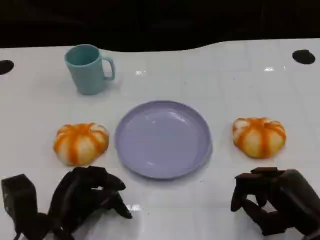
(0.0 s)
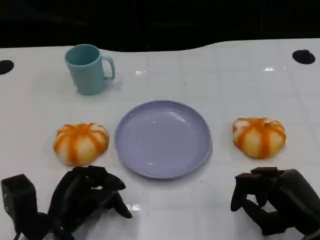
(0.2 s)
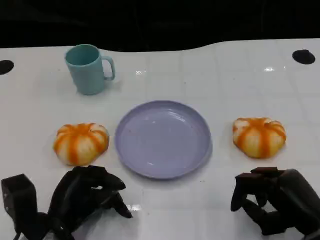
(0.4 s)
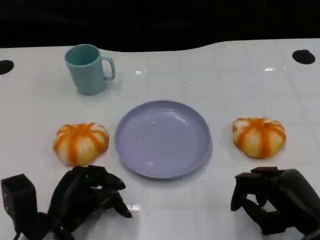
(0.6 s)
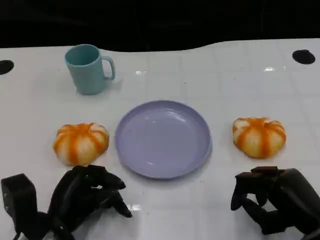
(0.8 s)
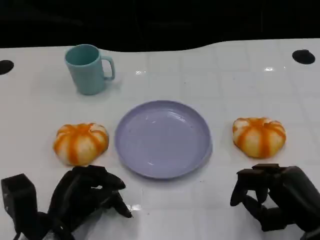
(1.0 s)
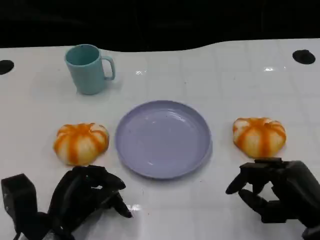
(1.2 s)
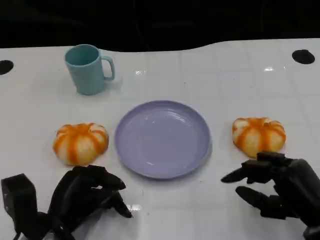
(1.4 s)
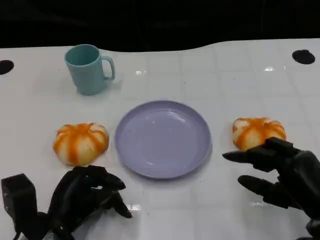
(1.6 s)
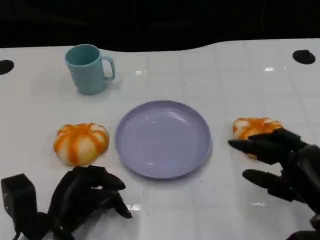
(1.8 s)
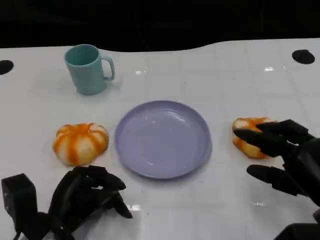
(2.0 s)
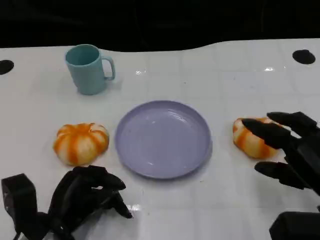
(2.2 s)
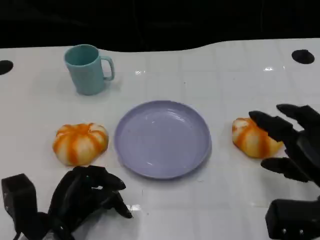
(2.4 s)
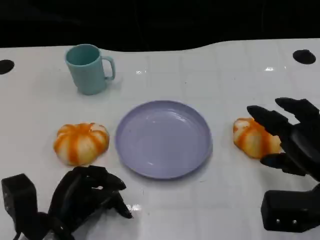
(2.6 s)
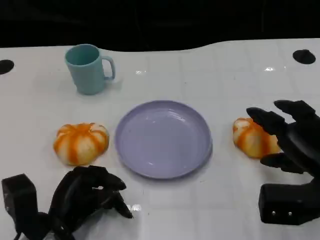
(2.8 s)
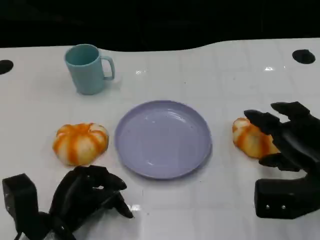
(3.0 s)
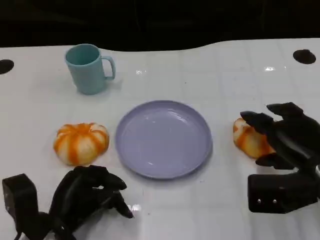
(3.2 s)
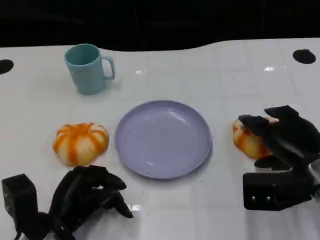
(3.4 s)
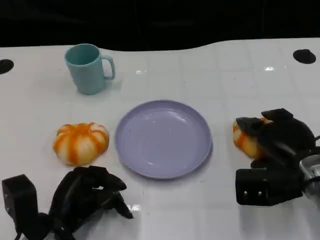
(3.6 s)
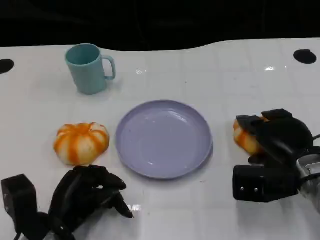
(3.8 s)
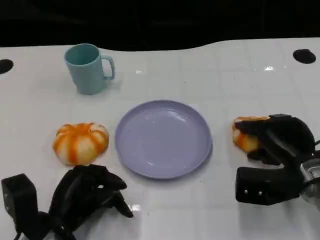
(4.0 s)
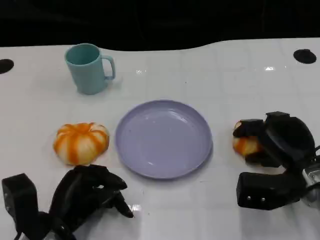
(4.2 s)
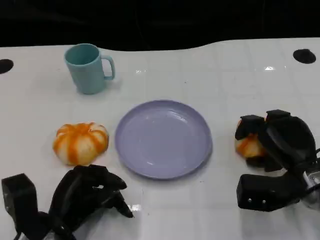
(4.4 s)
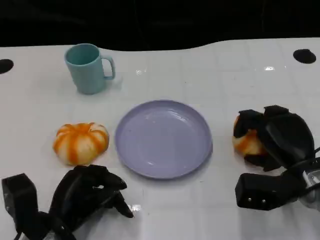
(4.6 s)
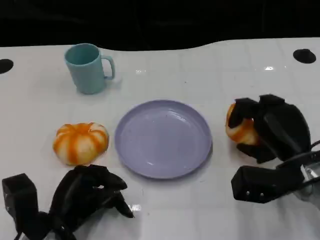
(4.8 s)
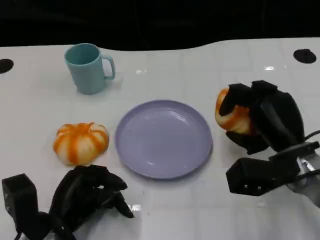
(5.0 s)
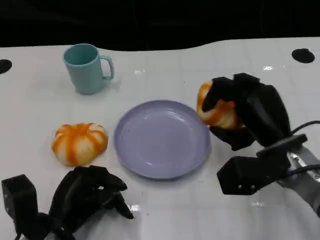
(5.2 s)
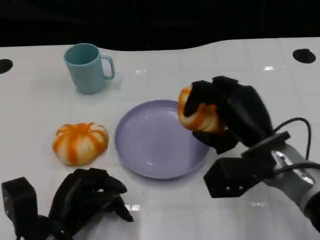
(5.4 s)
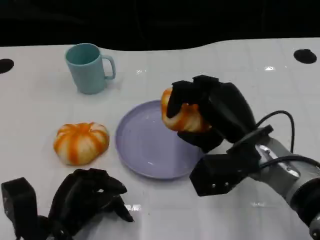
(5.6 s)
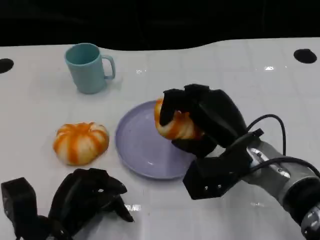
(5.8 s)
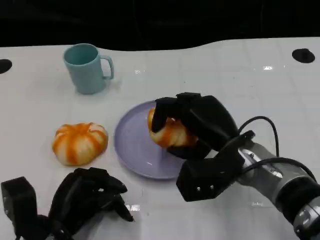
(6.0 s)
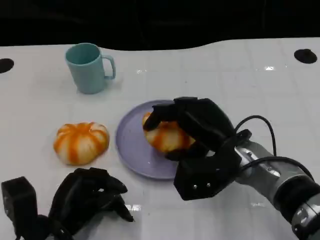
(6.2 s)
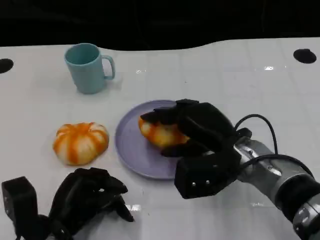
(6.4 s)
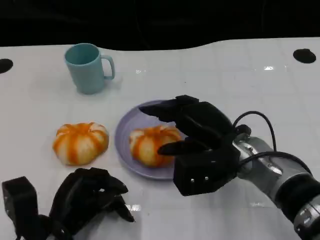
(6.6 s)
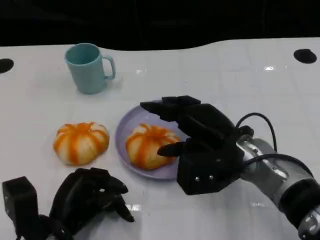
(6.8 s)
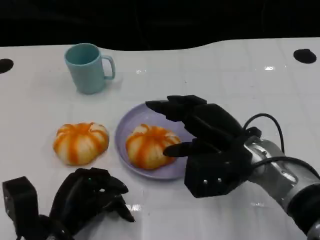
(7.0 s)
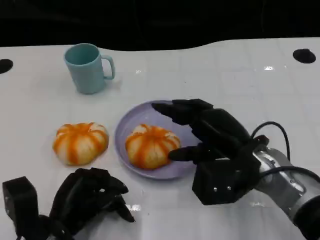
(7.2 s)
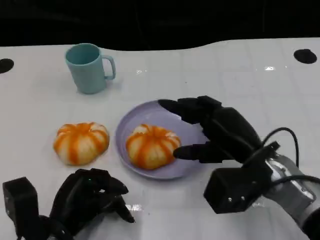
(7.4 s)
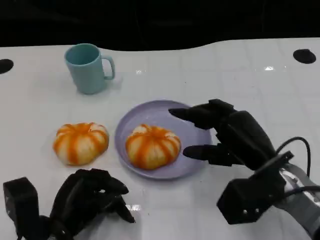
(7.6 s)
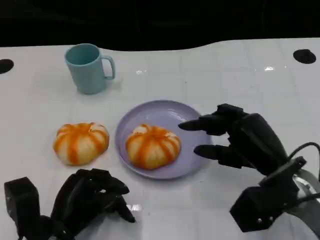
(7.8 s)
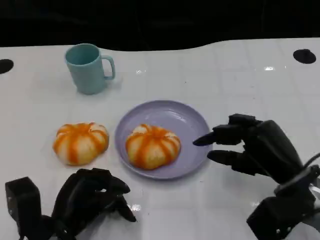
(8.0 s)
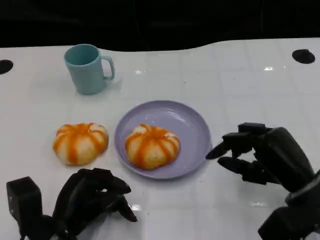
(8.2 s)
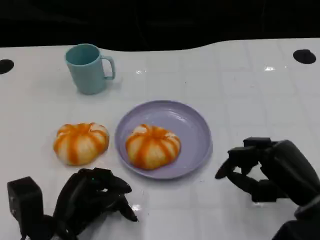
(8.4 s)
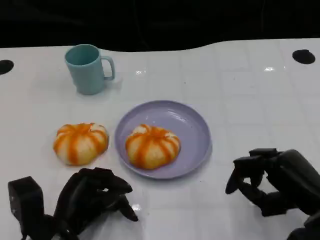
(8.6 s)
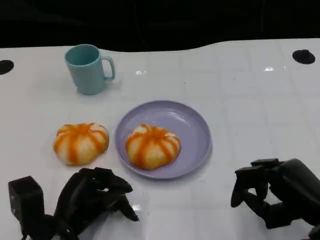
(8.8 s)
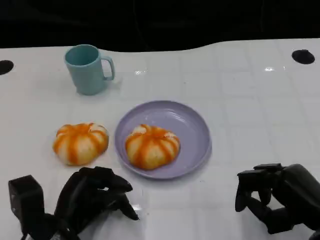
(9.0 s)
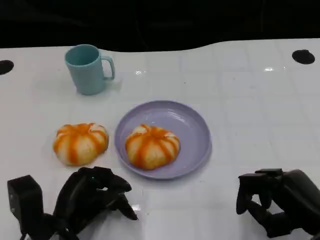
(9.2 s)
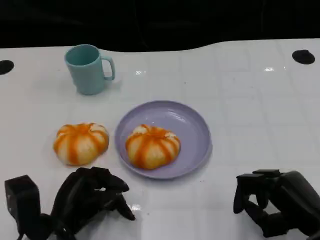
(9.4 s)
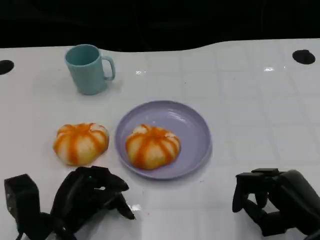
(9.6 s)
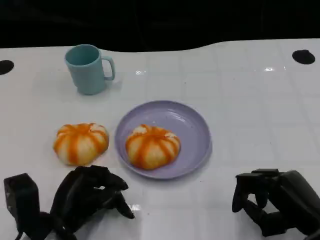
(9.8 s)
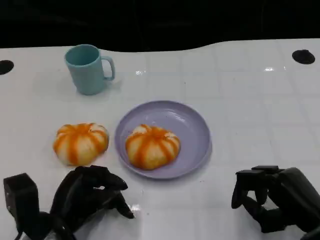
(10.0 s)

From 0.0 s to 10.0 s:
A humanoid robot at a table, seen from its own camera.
Task of the whole recording: Grasp the bread from the table and place it into the plate.
From 0.0 s to 1.4 s: There are only small adjustments of the hands.
From 1.4 s to 2.8 s: The right hand shifts approximately 5 cm forward.
From 2.8 s to 4.2 s: The right hand ends up approximately 5 cm from where it was.
From 4.2 s to 5.8 s: The right hand heads to the left and upward, covering about 10 cm.
From 5.8 s to 7.2 s: The hands stay close to where they were, moving slightly.
From 7.2 s to 8.6 s: The right hand moves to the right and backward, roughly 10 cm.
From 8.6 s to 10.0 s: The hands move only a little.

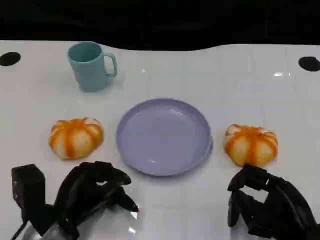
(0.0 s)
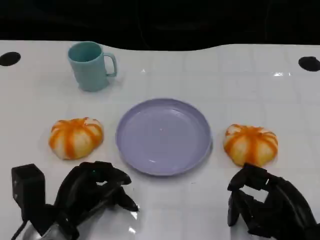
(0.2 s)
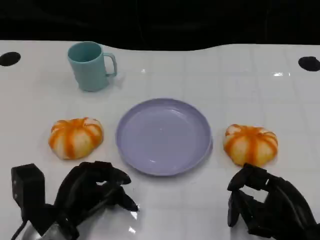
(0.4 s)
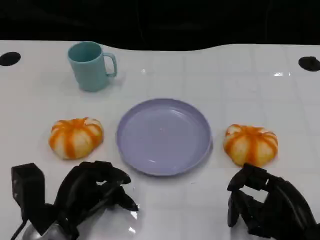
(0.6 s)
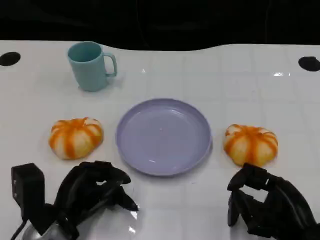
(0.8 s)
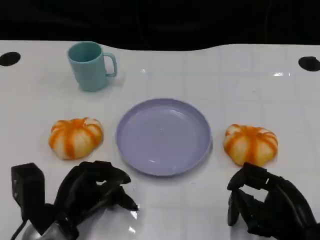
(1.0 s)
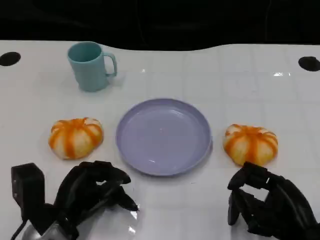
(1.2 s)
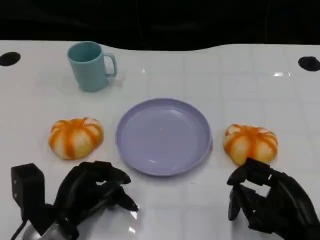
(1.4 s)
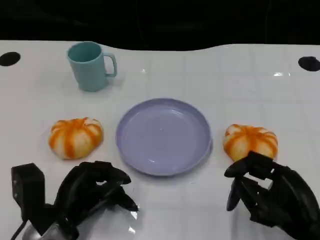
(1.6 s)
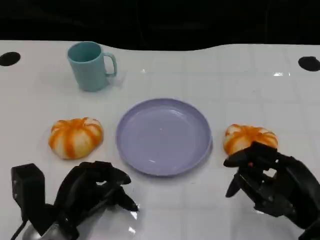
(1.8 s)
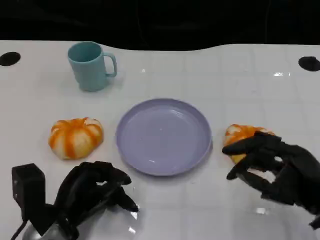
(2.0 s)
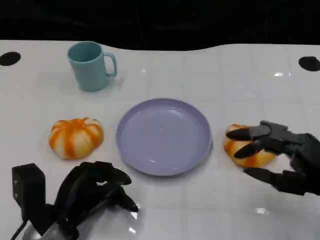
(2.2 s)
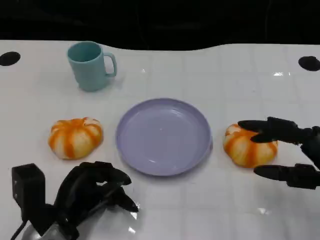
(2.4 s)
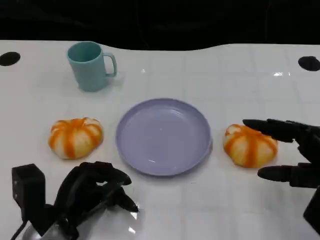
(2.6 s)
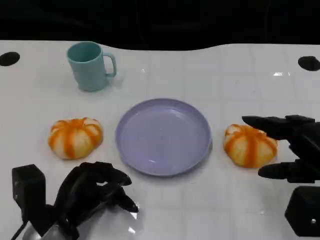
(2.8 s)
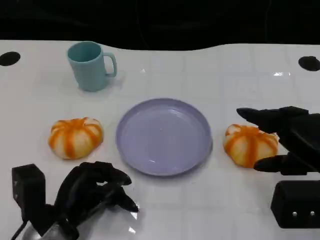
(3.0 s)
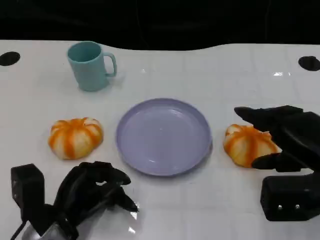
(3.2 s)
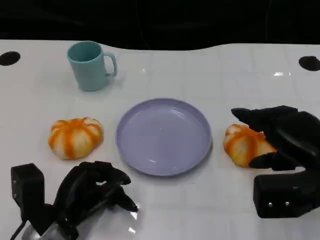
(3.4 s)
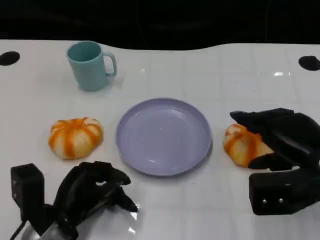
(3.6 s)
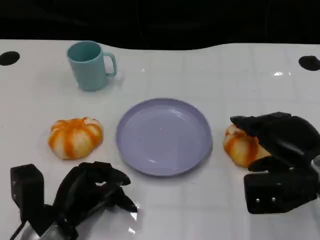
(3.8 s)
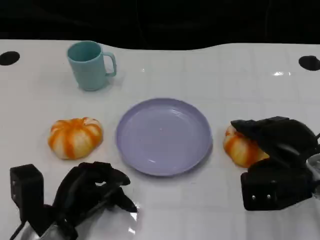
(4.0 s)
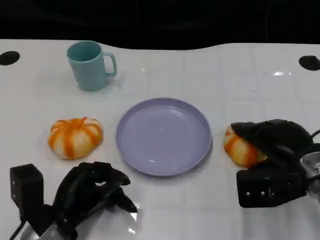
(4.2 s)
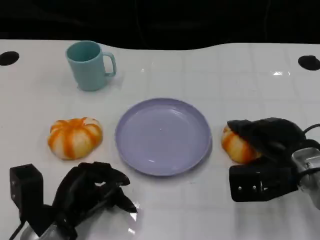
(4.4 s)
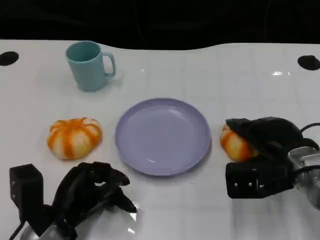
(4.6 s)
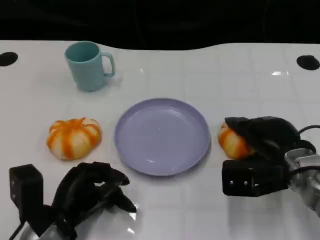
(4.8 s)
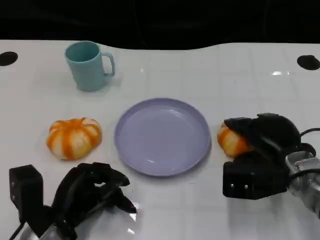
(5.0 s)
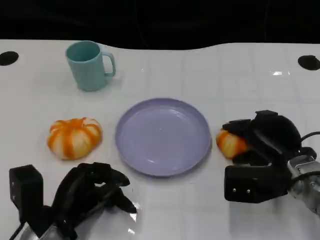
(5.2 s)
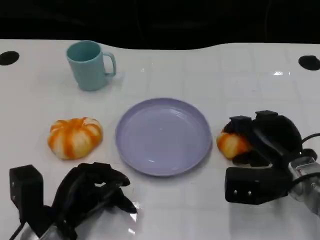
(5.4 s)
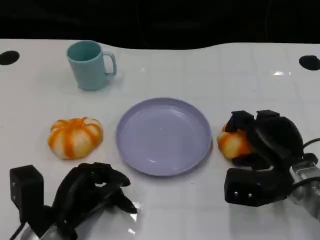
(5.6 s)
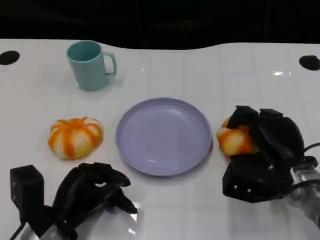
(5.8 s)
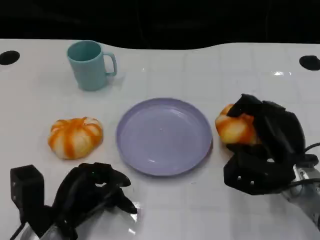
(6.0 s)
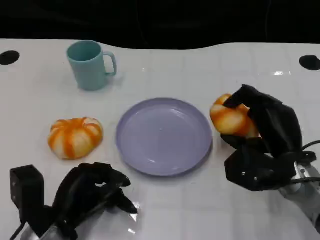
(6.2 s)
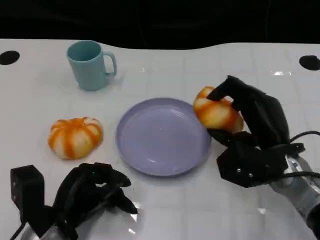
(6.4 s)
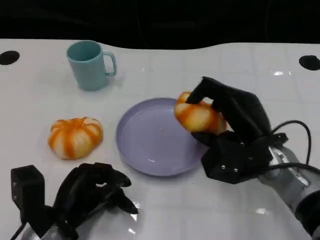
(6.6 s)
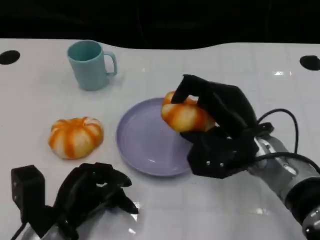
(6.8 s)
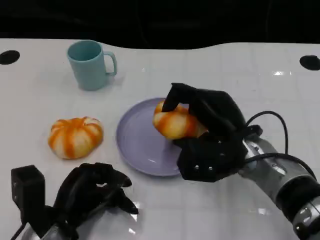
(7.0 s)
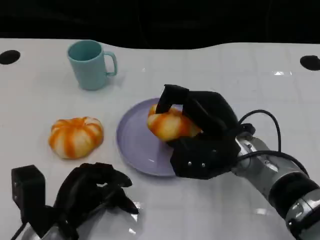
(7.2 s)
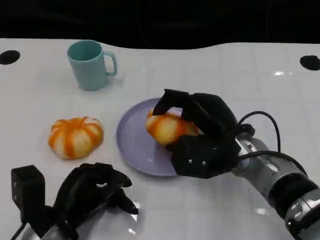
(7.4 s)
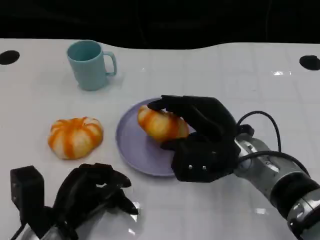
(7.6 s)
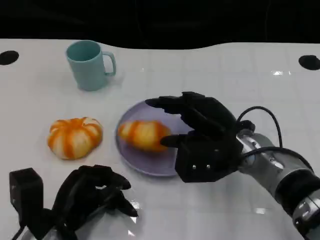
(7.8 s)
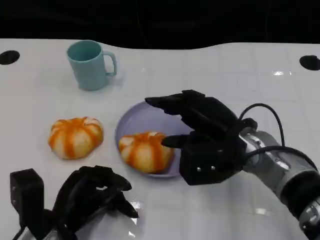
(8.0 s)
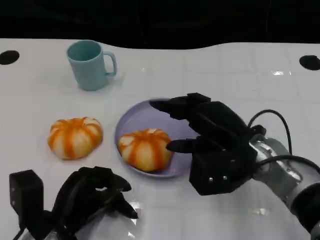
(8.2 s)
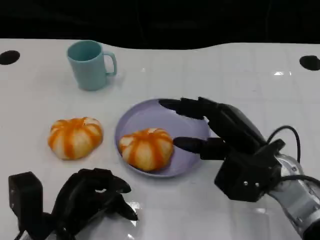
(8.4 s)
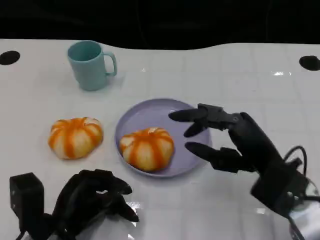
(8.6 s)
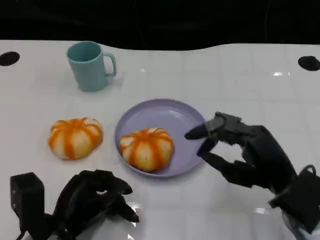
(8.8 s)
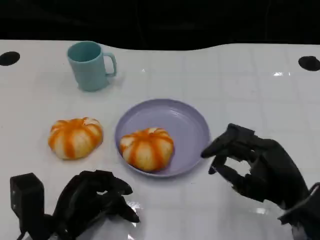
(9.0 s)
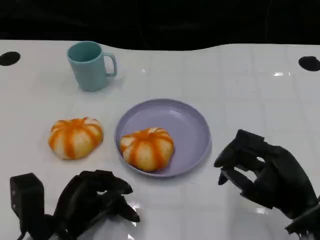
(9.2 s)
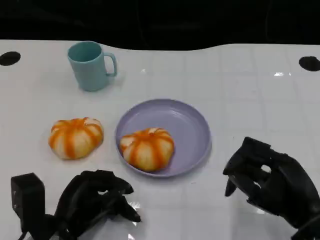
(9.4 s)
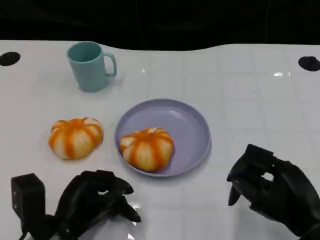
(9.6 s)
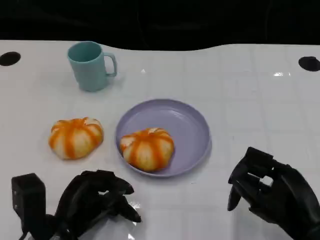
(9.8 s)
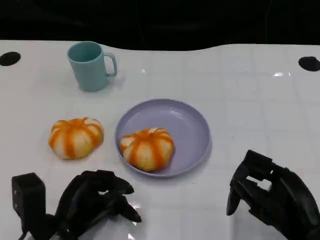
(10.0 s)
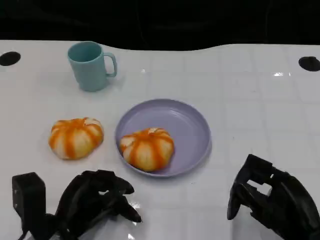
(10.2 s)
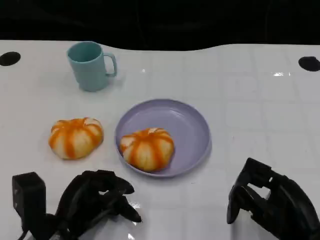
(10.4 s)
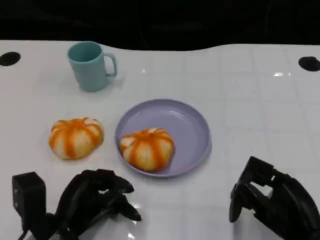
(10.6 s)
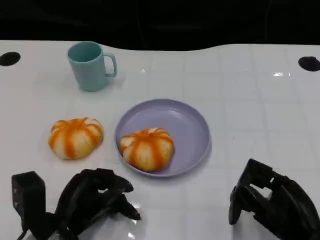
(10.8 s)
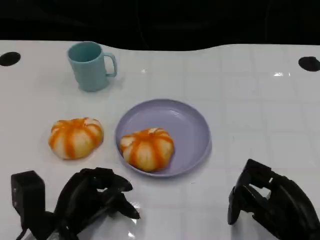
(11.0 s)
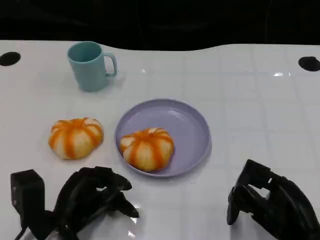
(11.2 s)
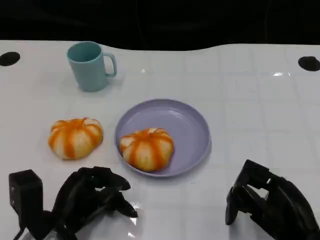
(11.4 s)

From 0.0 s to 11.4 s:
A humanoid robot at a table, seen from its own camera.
Task of the whole recording: Grasp the bread from the table and place it into the plate.
From 0.0 s to 1.4 s: The hands move only a little.
From 1.4 s to 2.8 s: The right hand is displaced upward by some 10 cm.
From 2.8 s to 4.2 s: The right hand goes roughly 10 cm forward and downward.
From 5.6 s to 7.2 s: The right hand moves to the left and upward, approximately 10 cm.
From 7.2 s to 8.6 s: The right hand is displaced to the right and backward by roughly 10 cm.
From 8.6 s to 10.0 s: The right hand shifts about 5 cm backward.
From 10.0 s to 11.4 s: The hands make only small movements.

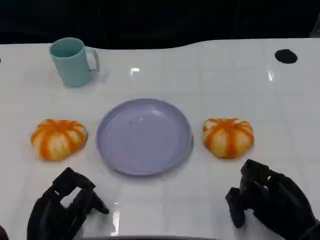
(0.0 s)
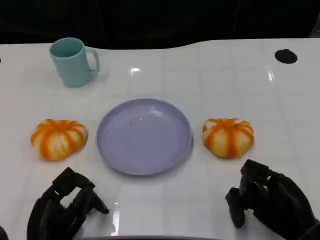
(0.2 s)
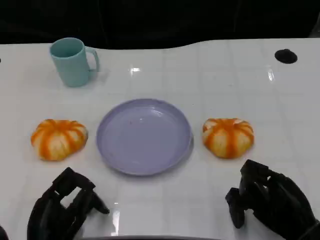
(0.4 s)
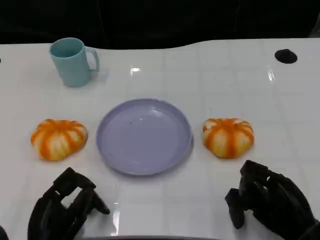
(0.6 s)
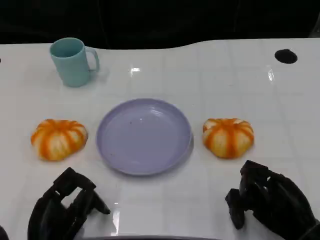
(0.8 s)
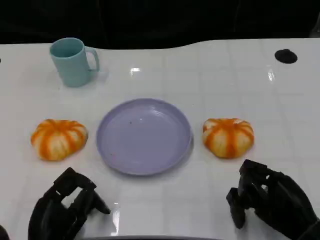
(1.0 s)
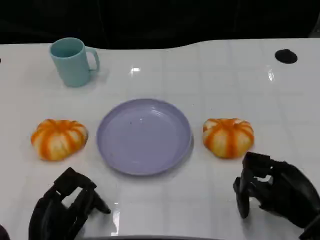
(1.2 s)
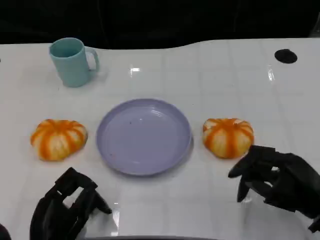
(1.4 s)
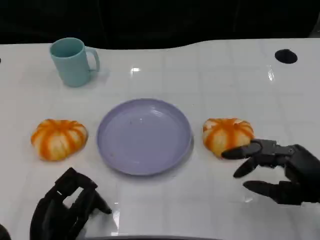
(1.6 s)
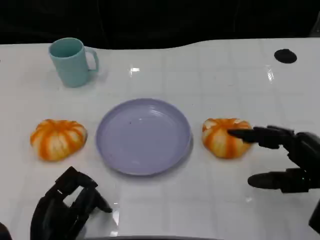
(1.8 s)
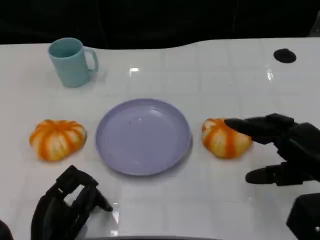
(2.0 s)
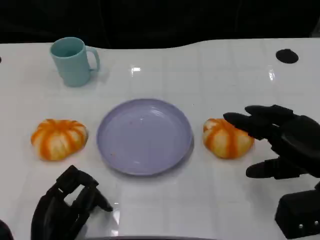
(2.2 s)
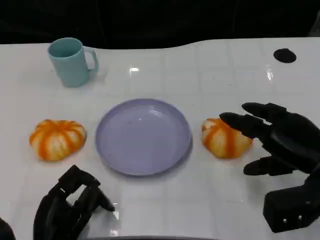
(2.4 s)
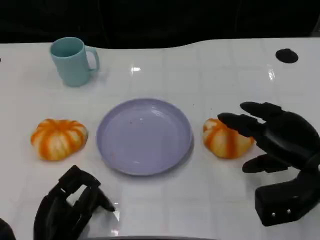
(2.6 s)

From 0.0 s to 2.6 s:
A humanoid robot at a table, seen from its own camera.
Task of the whole recording: Grasp the bread from the table and place it into the plate.
From 0.0 s to 1.2 s: The hands stay close to where they were, moving slightly.
From 1.2 s to 2.6 s: The right hand travels forward and upward by about 10 cm.
